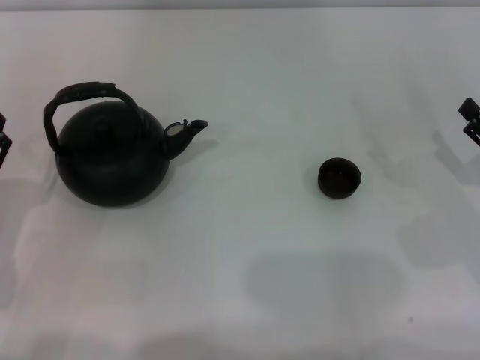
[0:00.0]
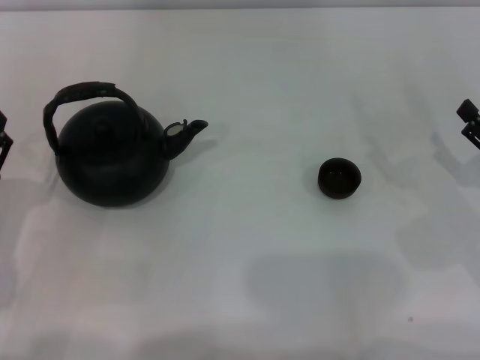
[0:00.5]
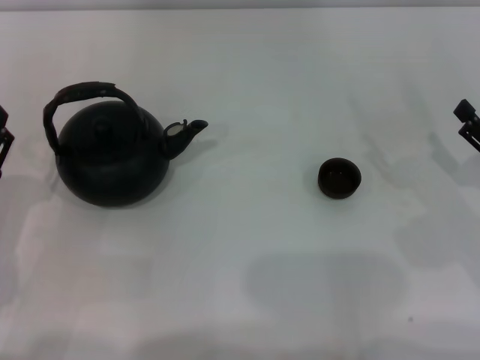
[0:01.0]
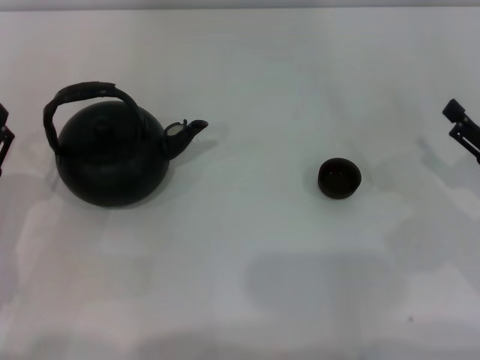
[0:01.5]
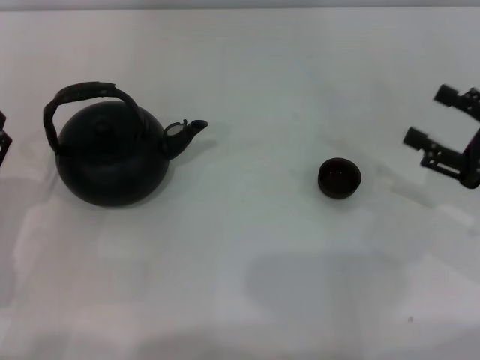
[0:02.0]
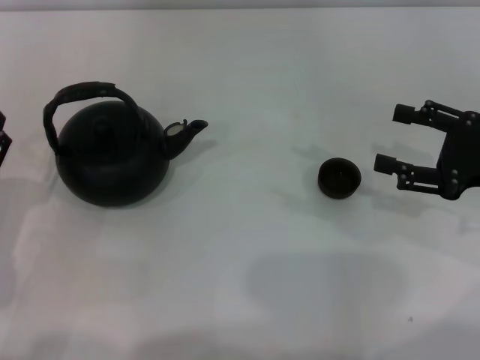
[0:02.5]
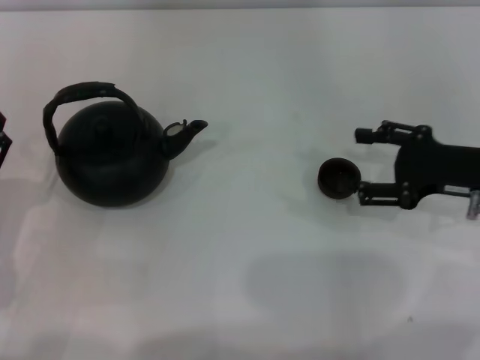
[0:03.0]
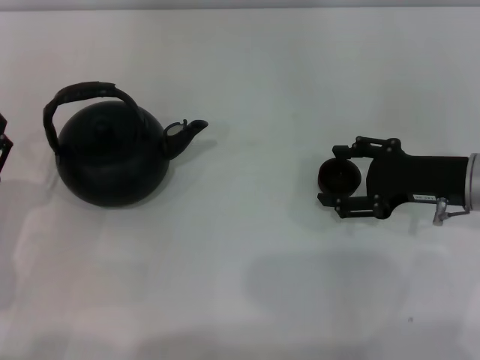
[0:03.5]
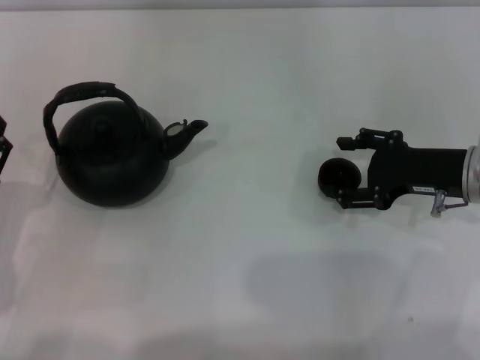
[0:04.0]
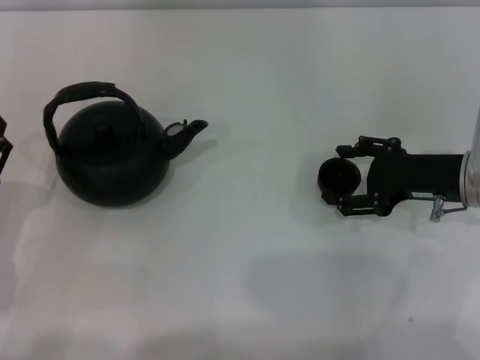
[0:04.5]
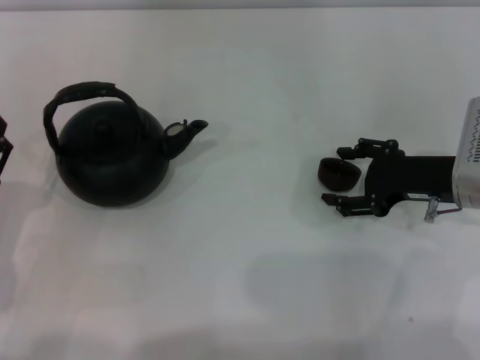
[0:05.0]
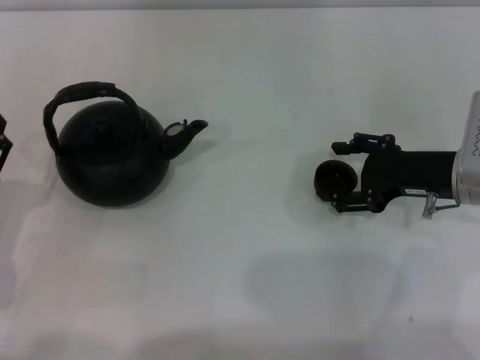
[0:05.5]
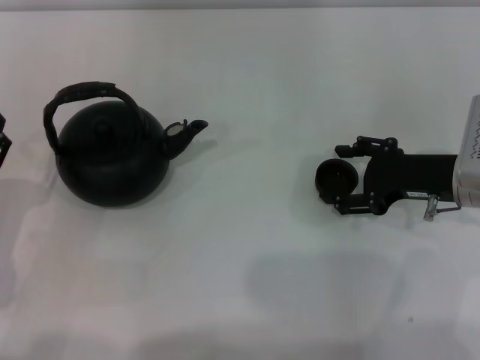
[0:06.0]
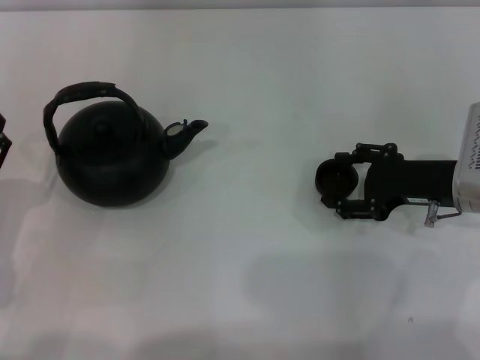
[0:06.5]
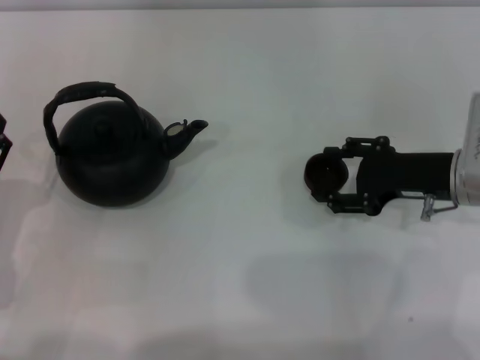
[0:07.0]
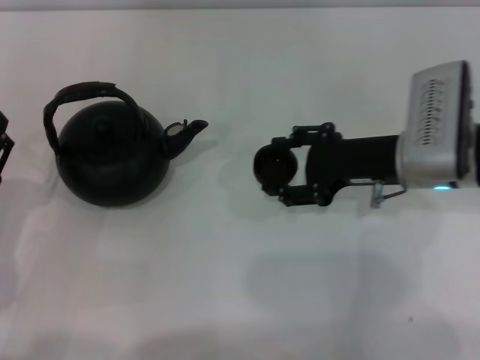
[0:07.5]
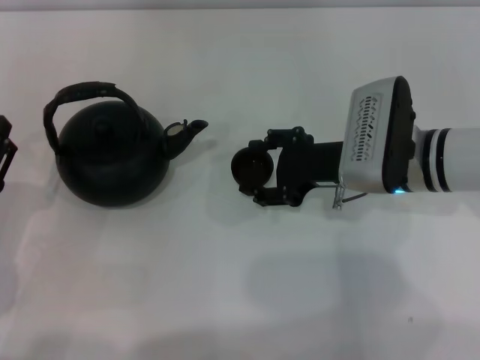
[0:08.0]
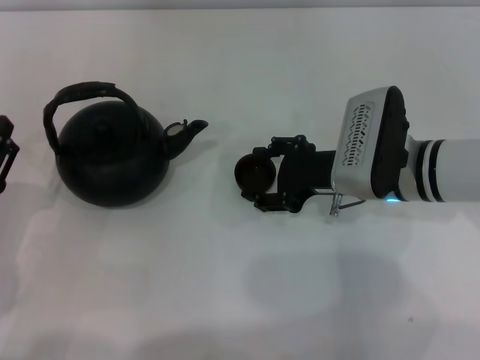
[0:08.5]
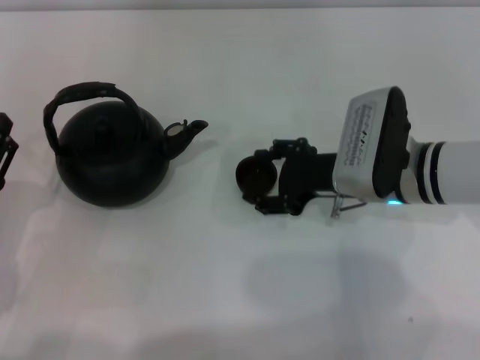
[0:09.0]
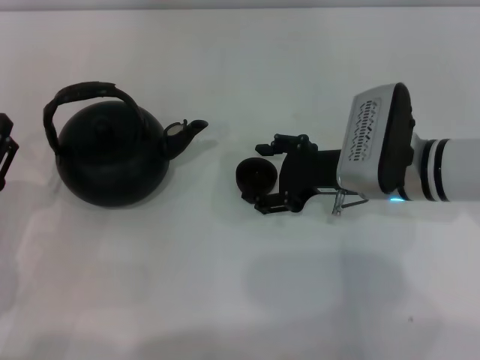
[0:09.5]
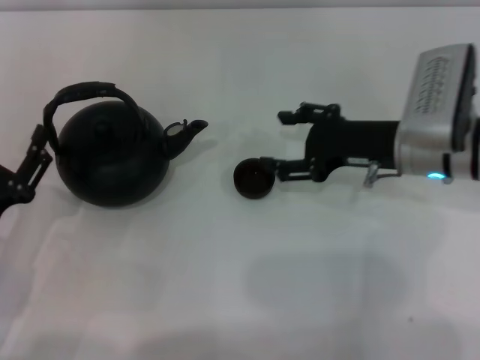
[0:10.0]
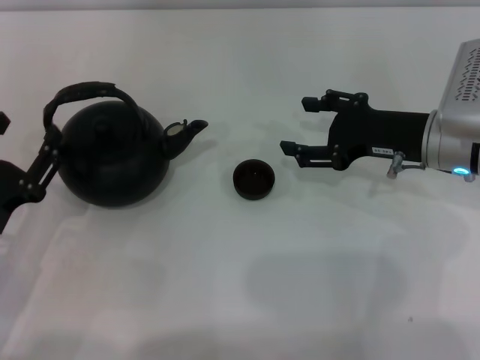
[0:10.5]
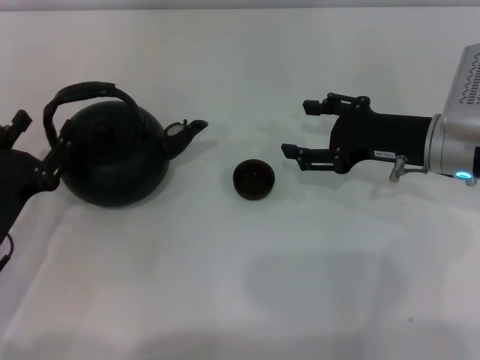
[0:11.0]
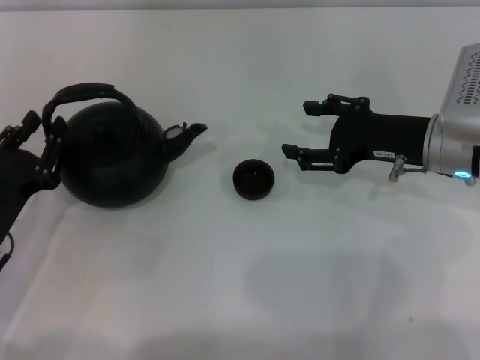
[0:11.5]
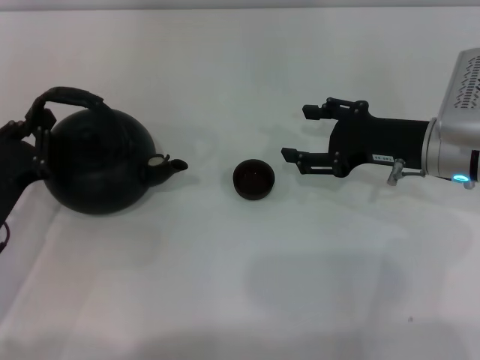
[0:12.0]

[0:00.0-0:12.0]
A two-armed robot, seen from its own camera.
Task of the whole recording: Grasp the handle of the teapot with one hand and pour tea into the teacup.
Step, 0:00.0 to 0:07.0: Pick up the teacup with the right gripper.
Step, 0:07.5 to 0:10.0: Place the teacup in the center of view with the right gripper.
0:02.0 to 0:04.0: The right gripper goes about 10 cm to the left and forward.
0:04.0 to 0:06.0: There are only small adjustments of the grippers.
0:06.0 to 0:08.0: The right gripper heads to the left, covering approximately 10 cm.
0:08.0 to 0:10.0: There are only small adjustments of the grippers.
0:10.0 to 0:12.0: The left gripper closes.

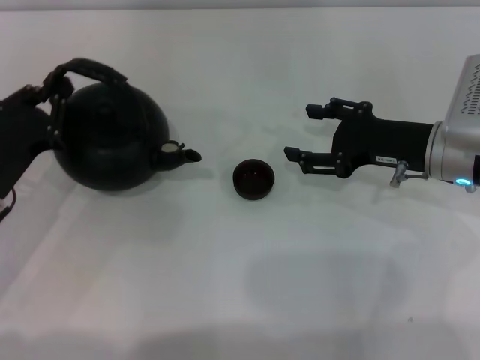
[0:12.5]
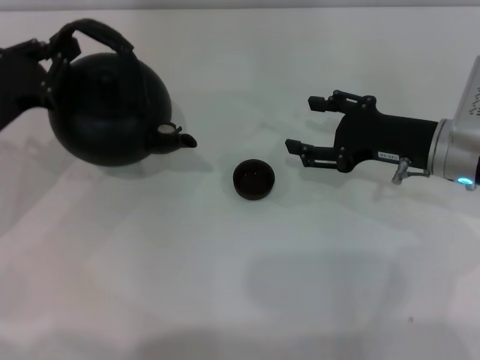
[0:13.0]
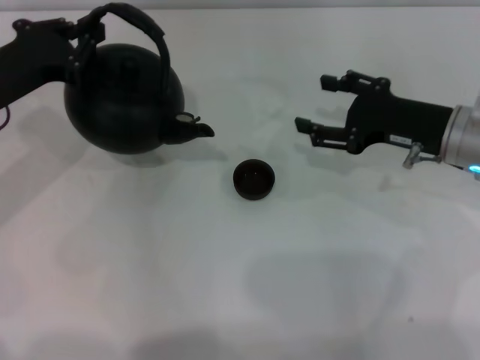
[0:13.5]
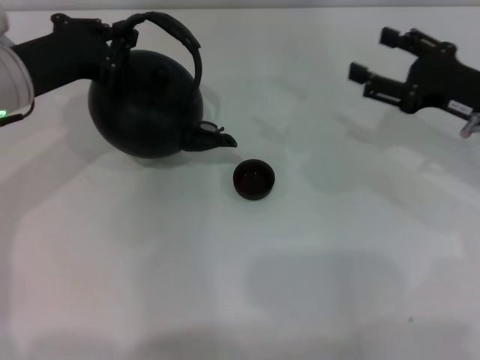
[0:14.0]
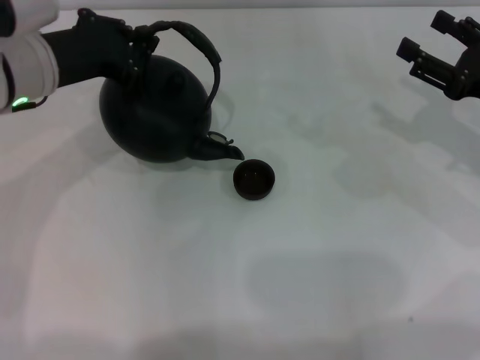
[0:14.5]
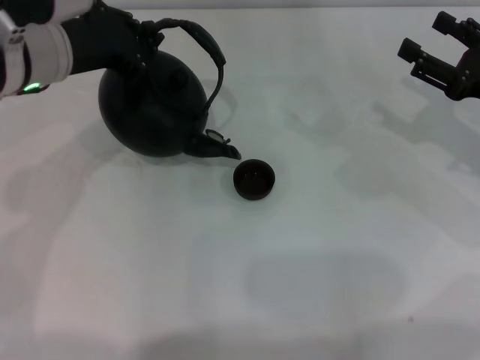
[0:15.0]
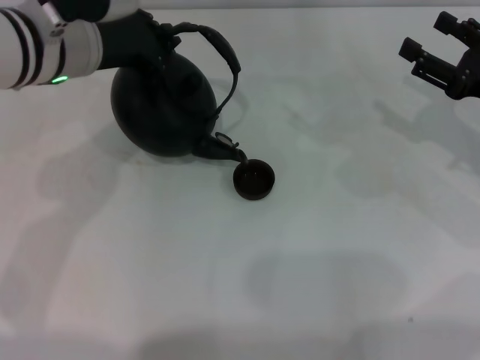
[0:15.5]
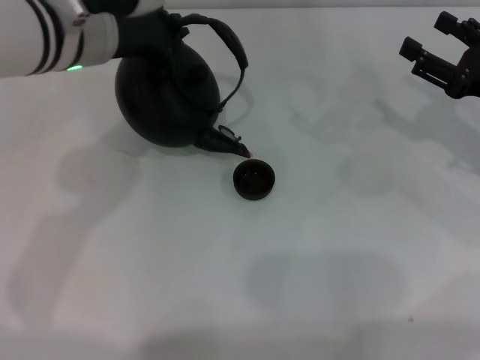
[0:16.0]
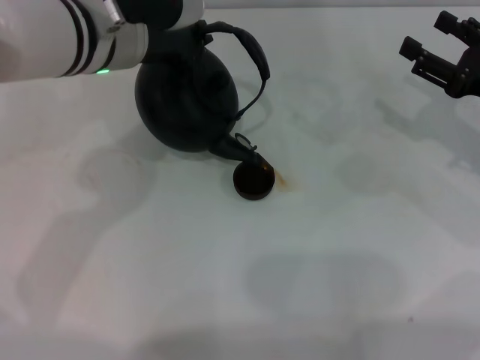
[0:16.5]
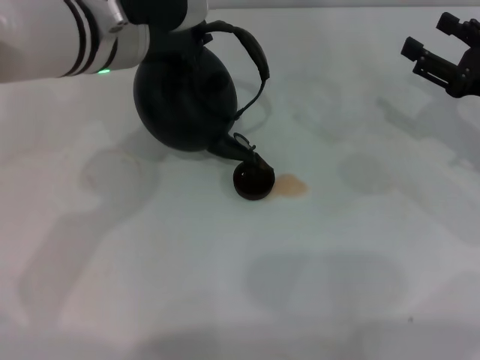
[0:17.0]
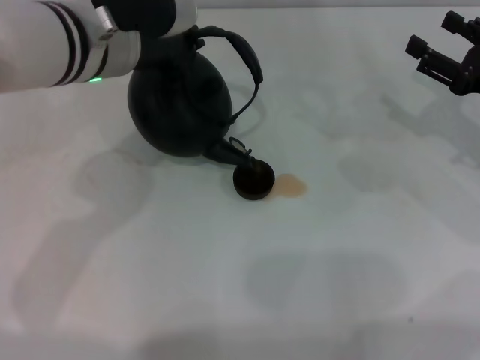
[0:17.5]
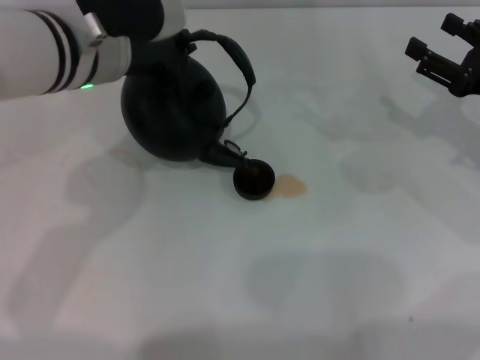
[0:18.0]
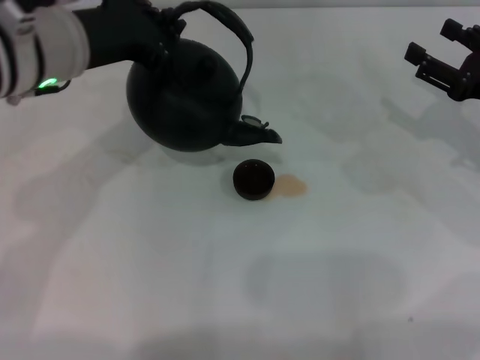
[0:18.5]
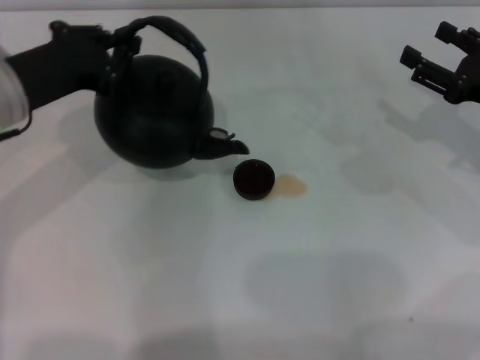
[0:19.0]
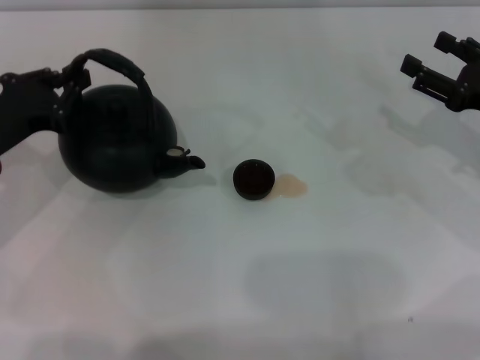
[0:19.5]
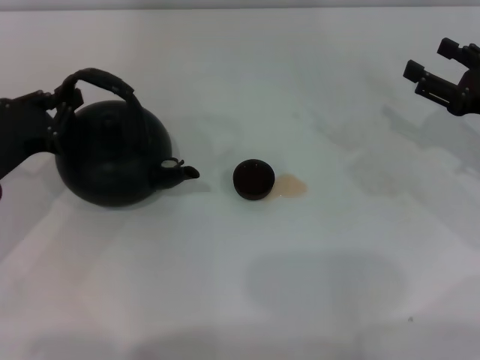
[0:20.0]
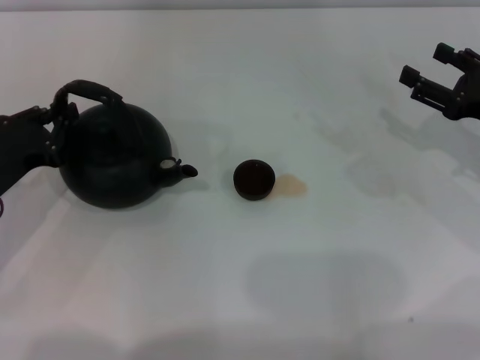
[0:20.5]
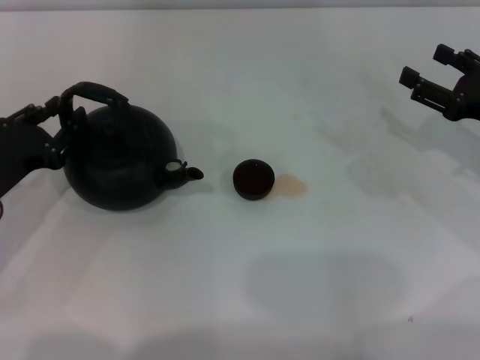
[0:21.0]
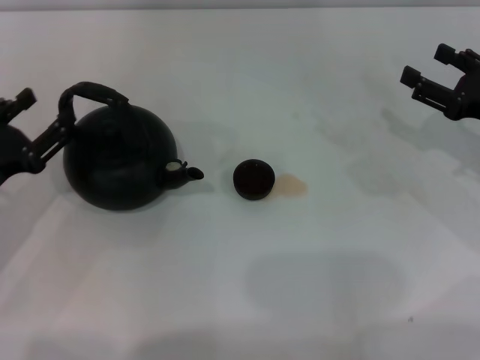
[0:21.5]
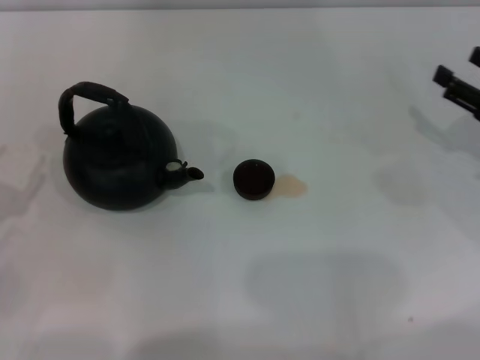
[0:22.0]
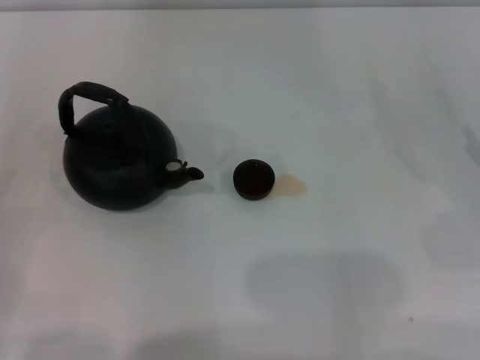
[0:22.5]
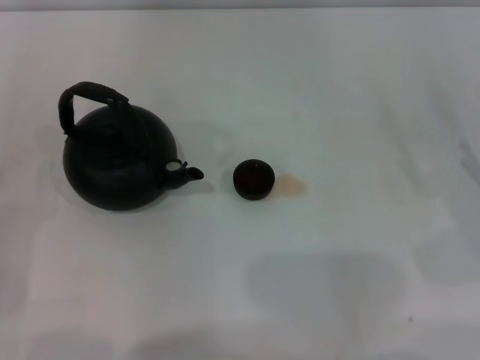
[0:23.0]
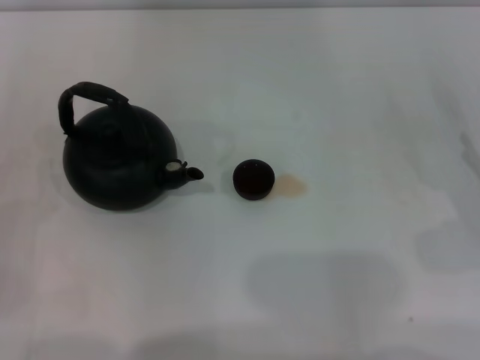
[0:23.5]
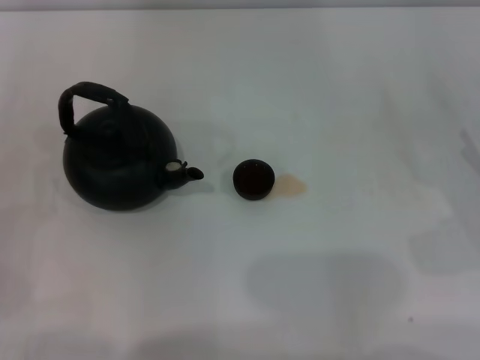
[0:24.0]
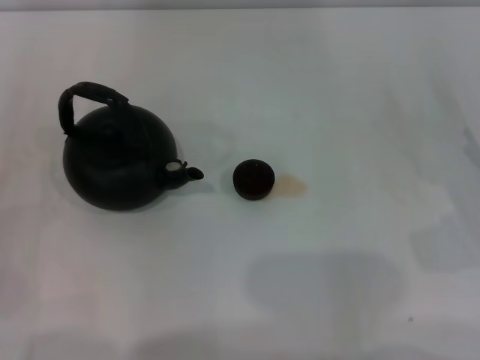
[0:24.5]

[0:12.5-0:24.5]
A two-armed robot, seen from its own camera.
Task of the whole recording: Grasp the handle of the teapot with one hand and pour tea into the teacup.
Step, 0:13.0 to 0:18.0: Pour tea into the teacup with the left gripper.
Step, 0:18.5 to 0:21.5: Put down the teapot with the left gripper.
0:12.5 to 0:14.5: The right gripper heads to the right, covering some 10 cm. The left gripper shifts roughly 15 cm upward, forward and to the right.
0:14.5 to 0:16.5: The left gripper goes approximately 10 cm to the right.
0:16.5 to 0:18.5: The left gripper is displaced to the left by roughly 5 cm.
0:18.5 to 0:20.5: The left gripper moves downward, to the left and backward, roughly 20 cm.
0:20.5 to 0:22.5: The left gripper shifts some 15 cm backward and to the left, and opens up. The right gripper heads backward, covering approximately 10 cm.

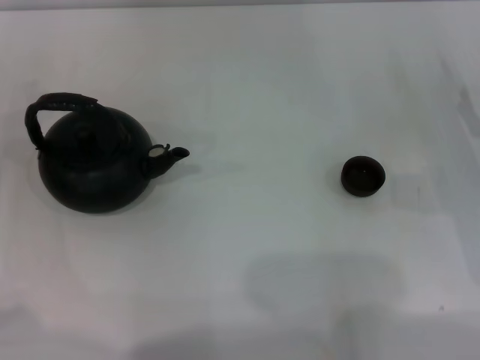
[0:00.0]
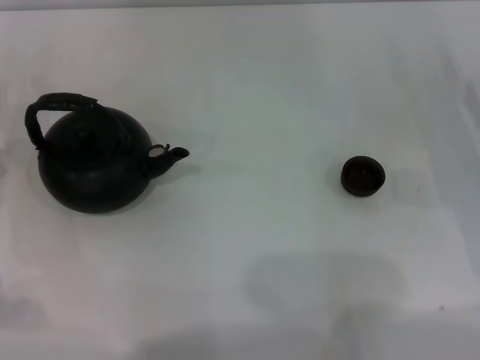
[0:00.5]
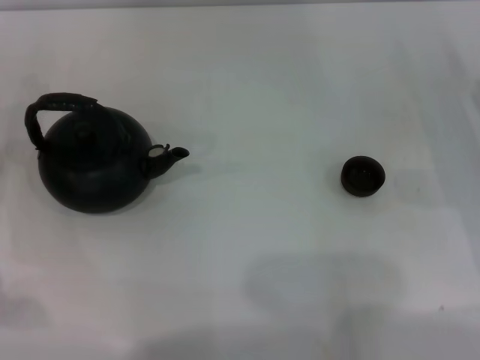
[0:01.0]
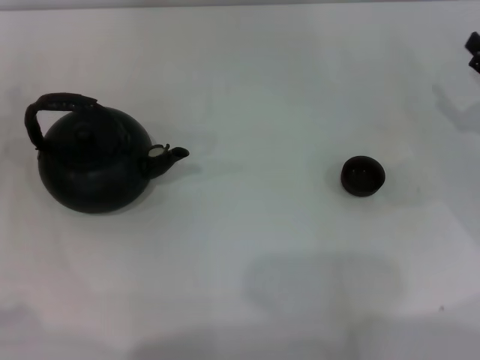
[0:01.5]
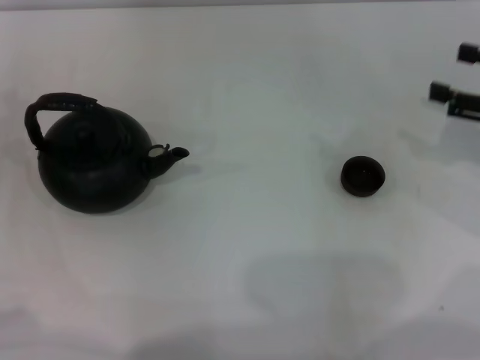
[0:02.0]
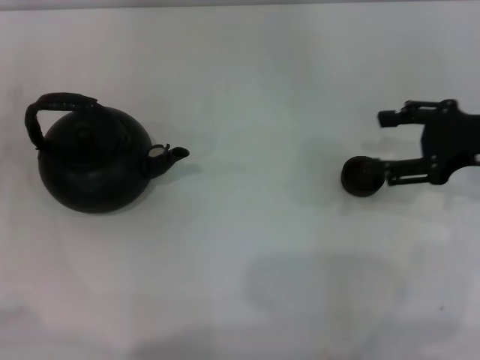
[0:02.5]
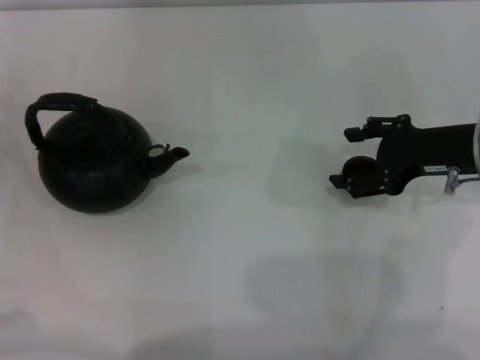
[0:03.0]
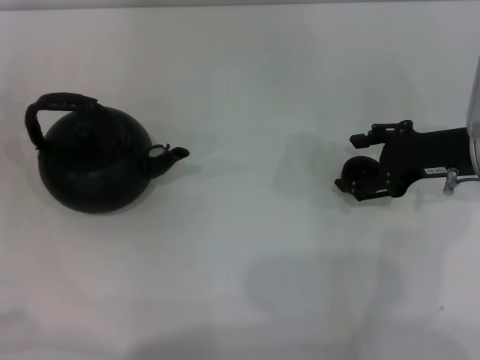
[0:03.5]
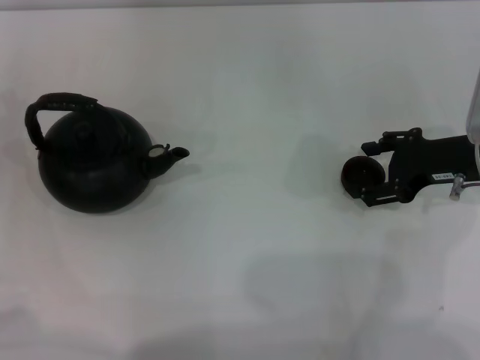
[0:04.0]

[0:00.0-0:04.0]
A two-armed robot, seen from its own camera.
Task of the whole recording: Grasp the handle of the teapot with one hand and pour tea into the teacup.
0:00.0 to 0:02.0: The right gripper travels upward by roughly 10 cm.
0:02.0 to 0:04.0: The right gripper shifts about 10 cm to the left.
